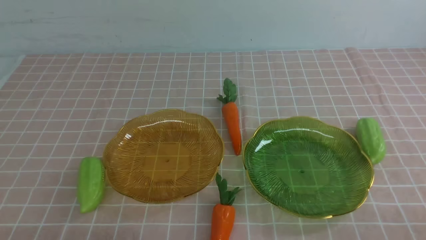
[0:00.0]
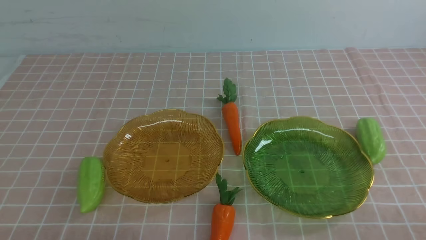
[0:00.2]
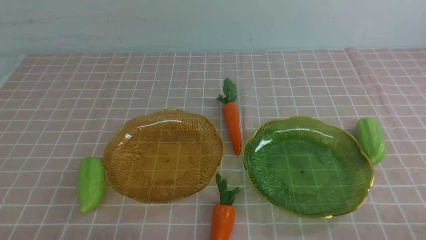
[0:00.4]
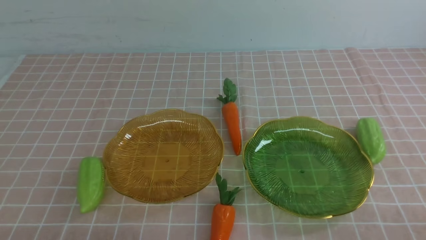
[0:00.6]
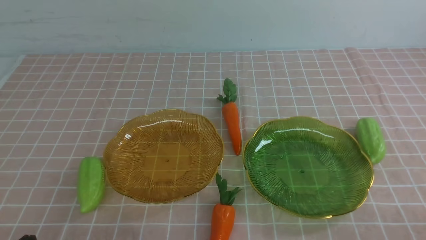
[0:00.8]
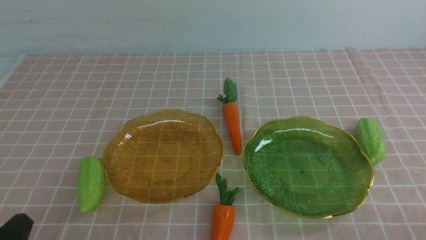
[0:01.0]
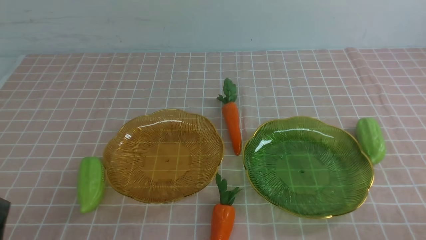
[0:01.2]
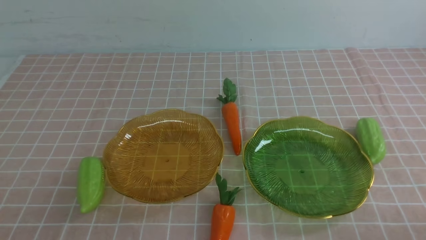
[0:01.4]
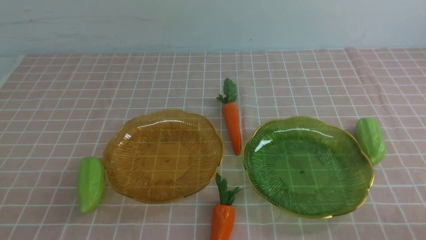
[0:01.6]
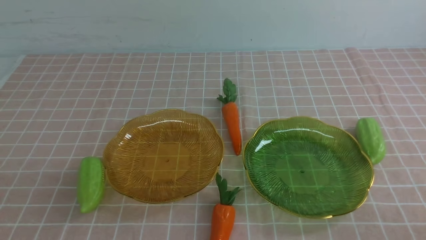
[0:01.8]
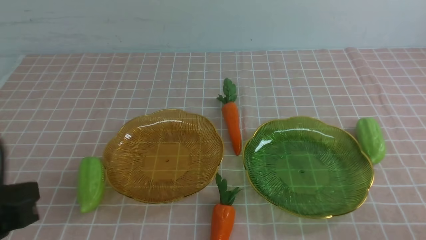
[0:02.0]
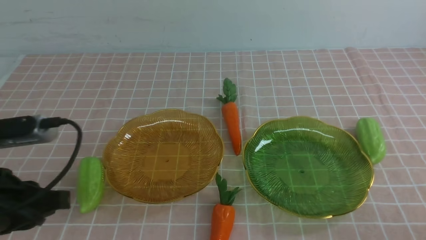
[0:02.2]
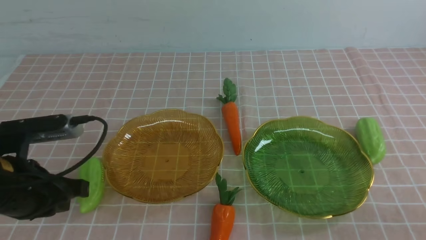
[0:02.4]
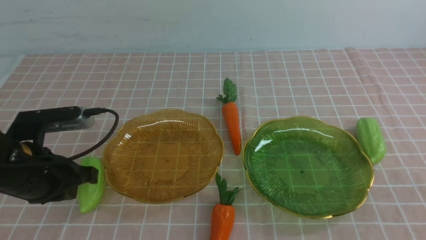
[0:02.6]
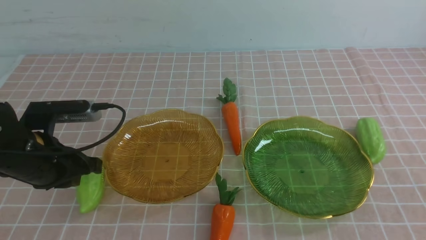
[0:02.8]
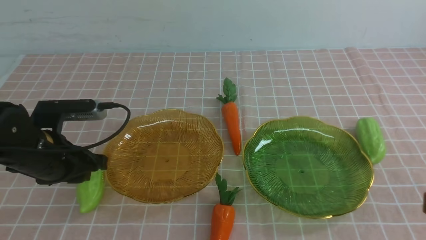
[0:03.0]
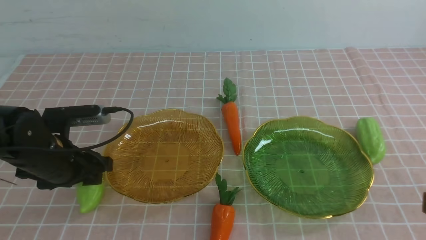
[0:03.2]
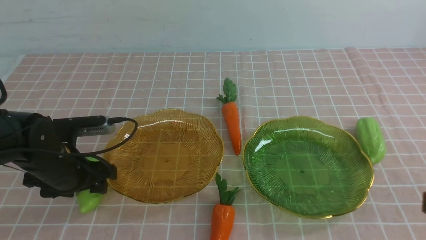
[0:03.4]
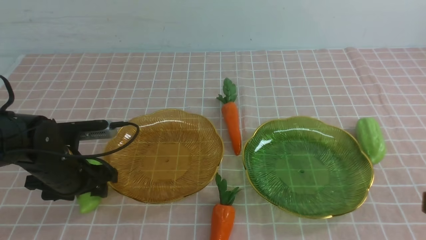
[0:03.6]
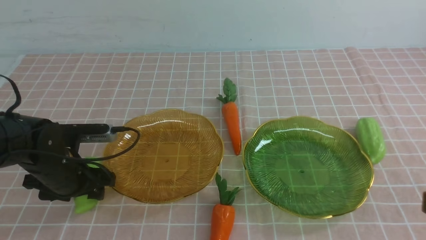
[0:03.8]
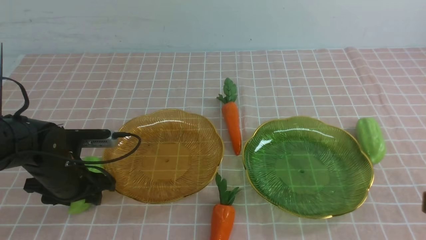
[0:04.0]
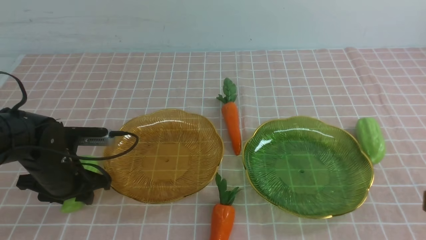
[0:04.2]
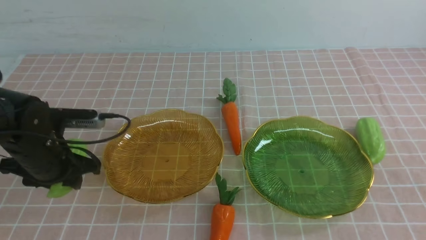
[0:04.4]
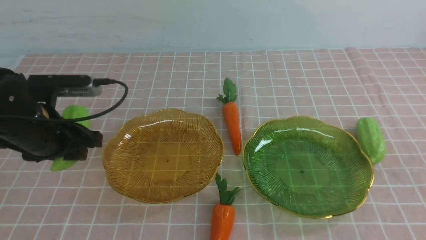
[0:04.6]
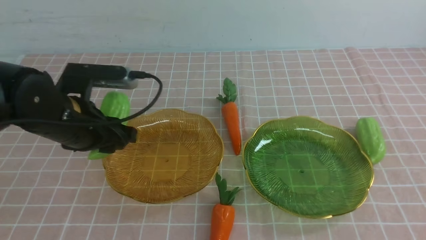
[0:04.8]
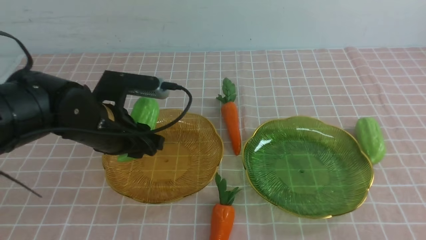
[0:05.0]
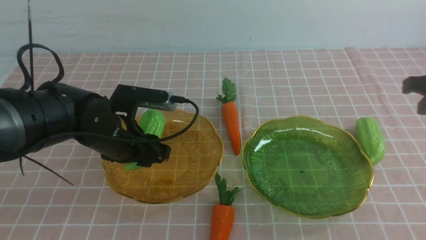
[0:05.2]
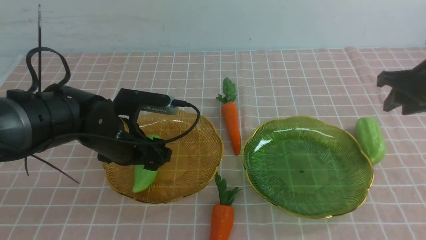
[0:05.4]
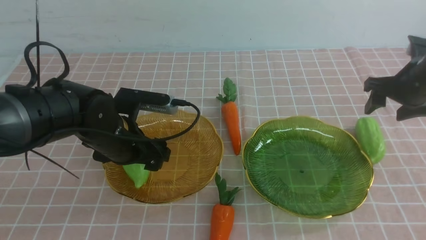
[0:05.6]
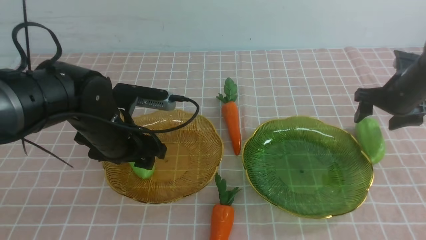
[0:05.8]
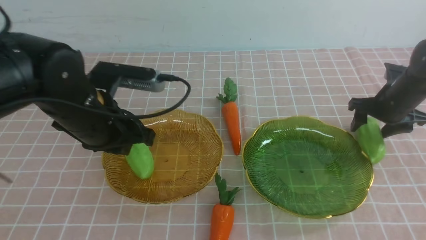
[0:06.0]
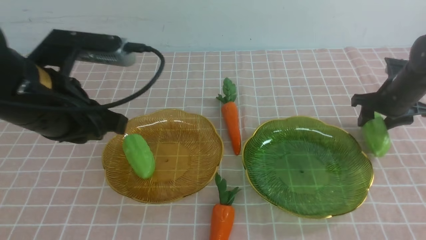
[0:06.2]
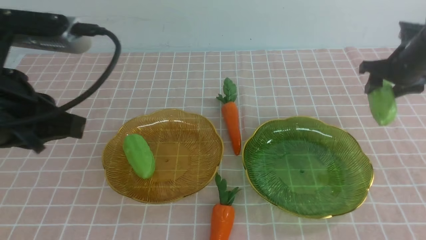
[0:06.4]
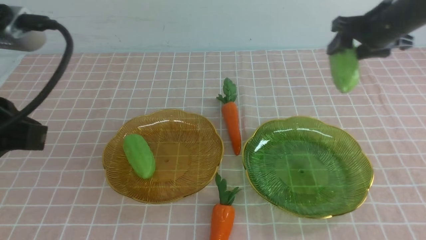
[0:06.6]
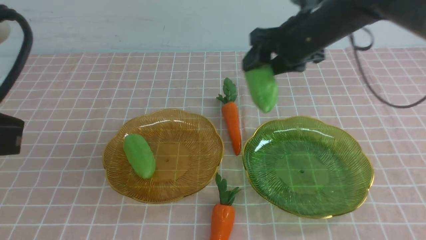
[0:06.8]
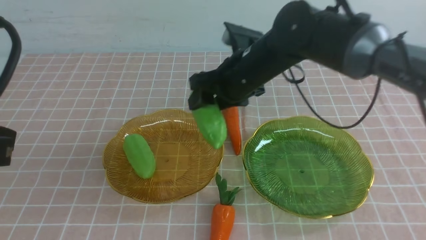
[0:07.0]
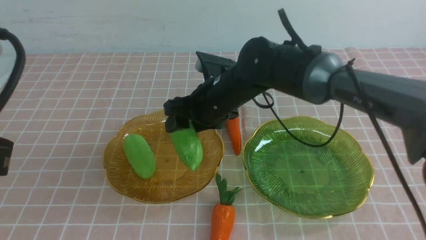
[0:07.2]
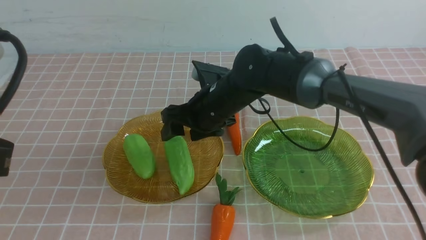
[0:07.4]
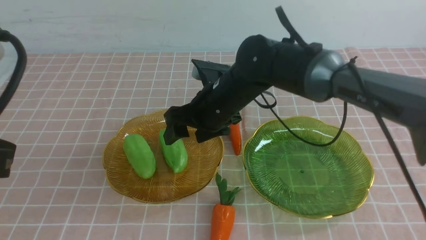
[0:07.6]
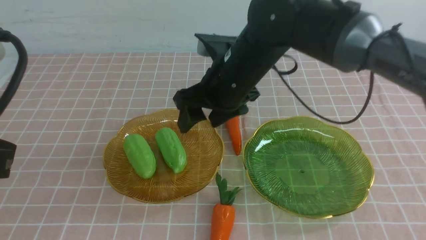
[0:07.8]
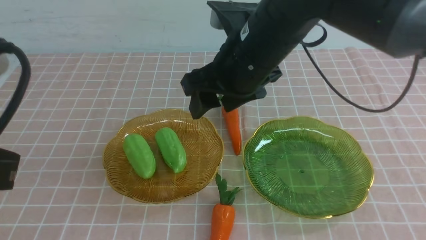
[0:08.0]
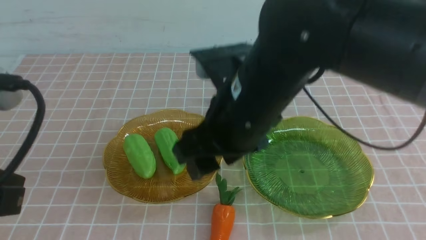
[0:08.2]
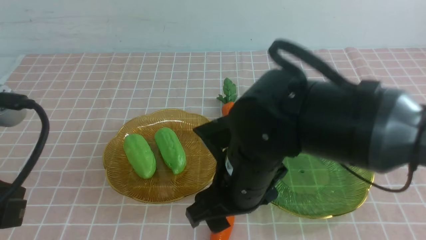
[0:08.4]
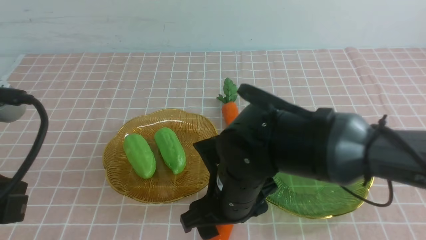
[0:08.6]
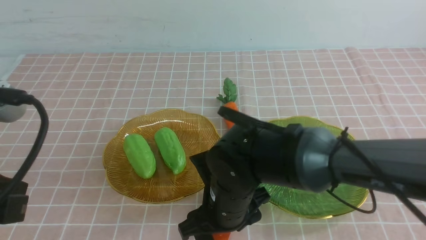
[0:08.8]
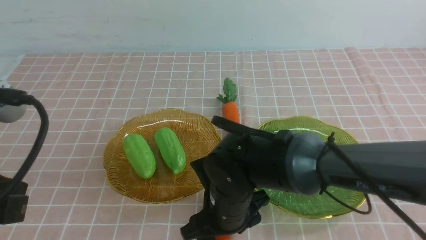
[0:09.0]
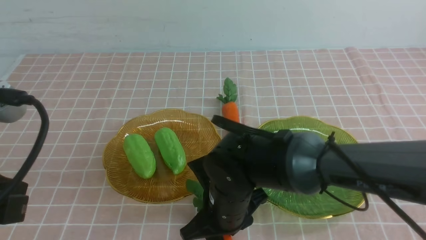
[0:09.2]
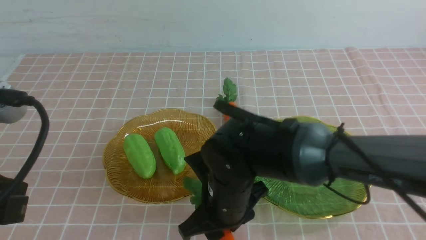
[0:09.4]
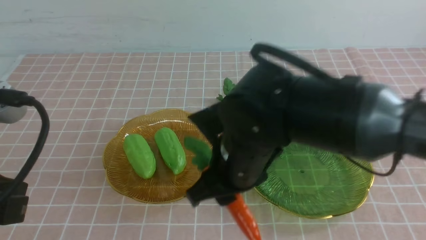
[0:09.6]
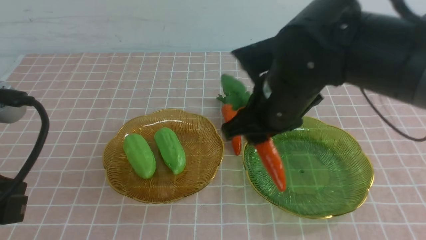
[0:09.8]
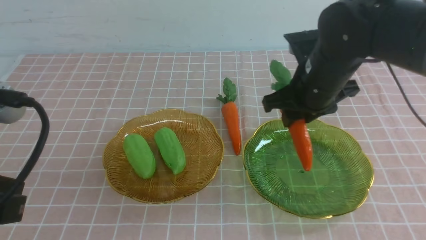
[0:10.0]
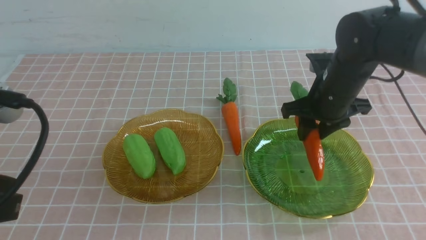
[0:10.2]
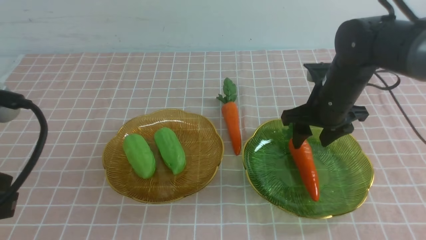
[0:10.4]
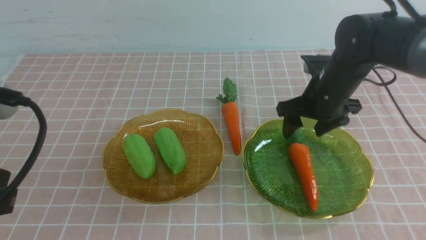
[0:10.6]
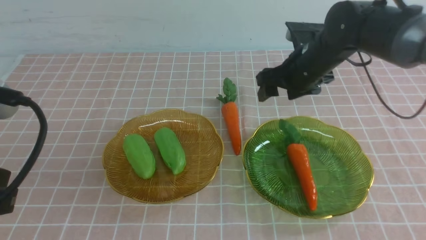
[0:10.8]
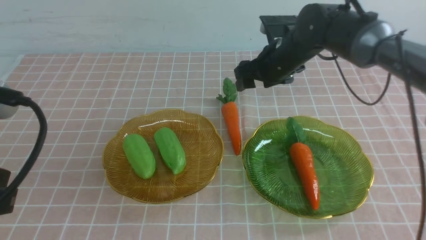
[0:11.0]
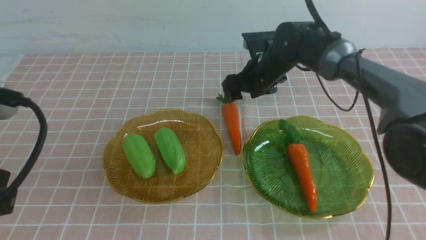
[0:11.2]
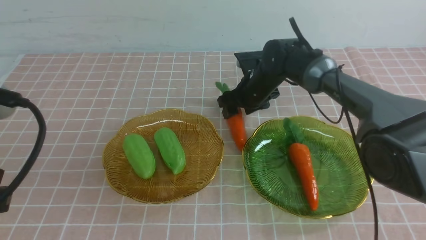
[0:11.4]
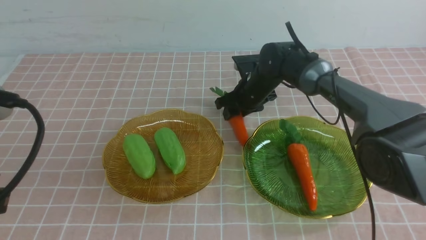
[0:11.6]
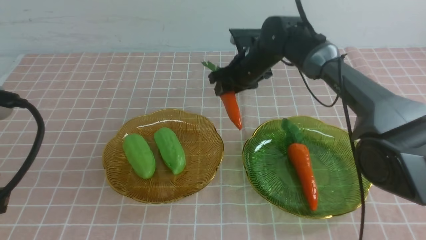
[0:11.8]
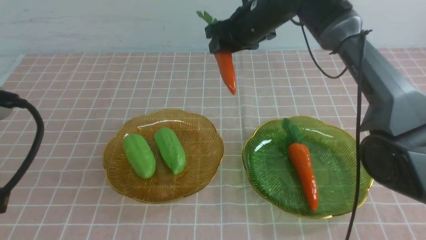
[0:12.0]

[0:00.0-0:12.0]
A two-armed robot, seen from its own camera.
Step, 0:00.0 to 0:05.8: use the left arm to grab a chayote and put it into the left plate.
Step, 0:06.0 to 0:07.4: Grab the chayote with your right arm and put it on the left plate.
0:01.6 to 0:03.0: The left gripper goes about 25 cm forward, and opens its fingers.
0:03.0 to 0:04.4: There are only small adjustments of the grippers.
0:04.4 to 0:06.0: The right gripper is displaced forward and downward by about 35 cm, and opens its fingers. Meanwhile the left gripper is displaced to the right and upward by about 10 cm, and opens, then closes again.
0:06.0 to 0:07.6: The left gripper is displaced backward and upward by about 20 cm, and closes up; the right gripper shifts about 30 cm to the left.
0:07.6 to 0:09.0: The right gripper goes about 15 cm backward and downward.
0:09.0 to 0:10.4: The right gripper heads forward, to the right and upward, covering roughly 25 cm.
0:10.4 to 0:12.0: The right gripper heads to the left, forward and upward, covering roughly 15 cm, and closes its fingers.

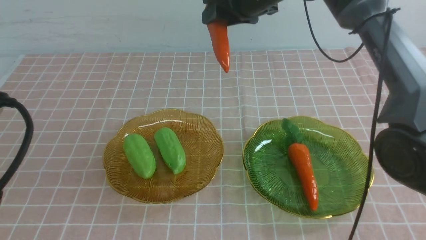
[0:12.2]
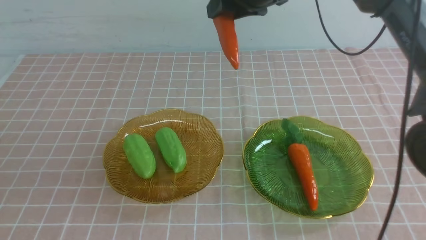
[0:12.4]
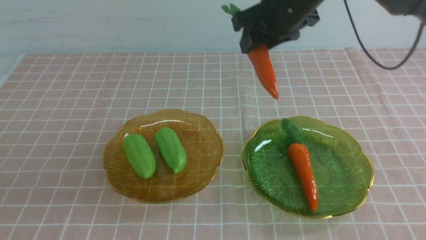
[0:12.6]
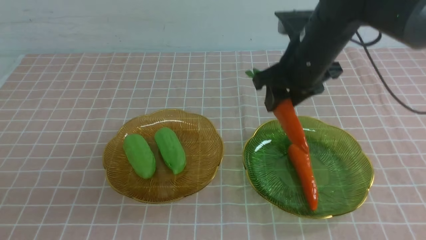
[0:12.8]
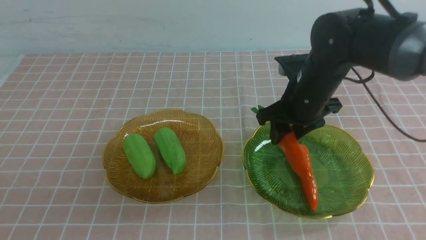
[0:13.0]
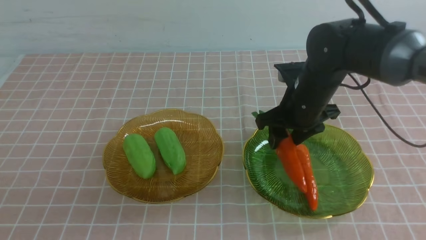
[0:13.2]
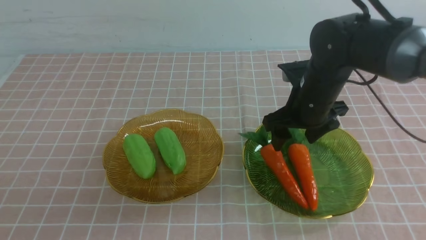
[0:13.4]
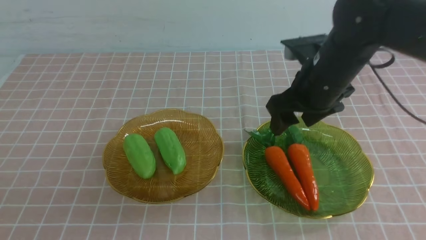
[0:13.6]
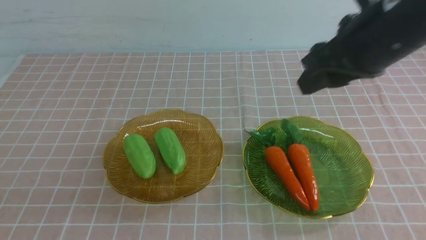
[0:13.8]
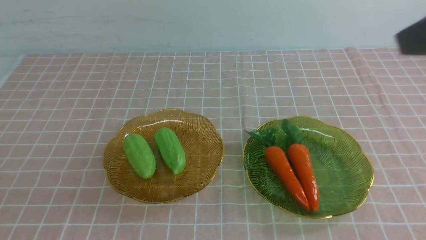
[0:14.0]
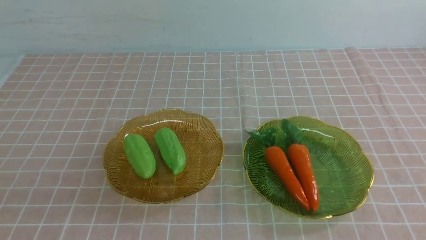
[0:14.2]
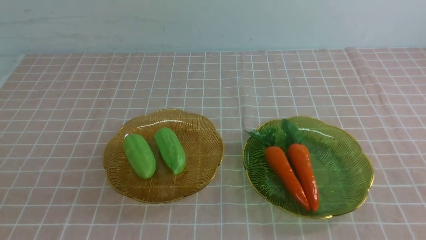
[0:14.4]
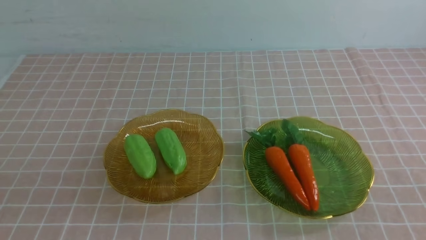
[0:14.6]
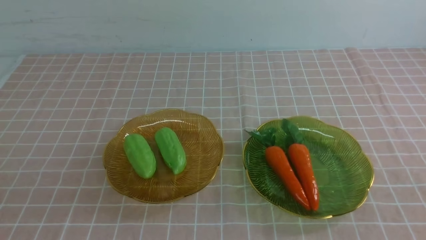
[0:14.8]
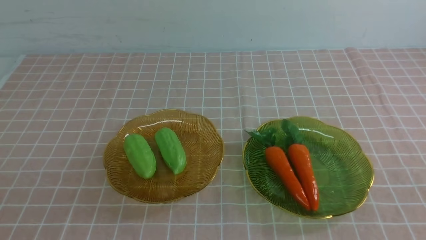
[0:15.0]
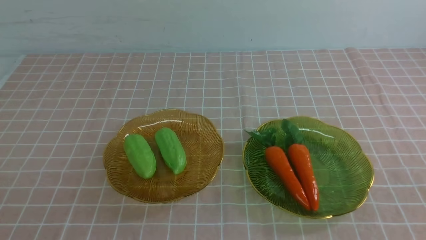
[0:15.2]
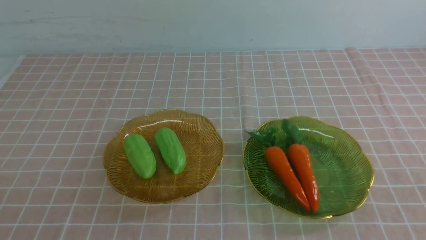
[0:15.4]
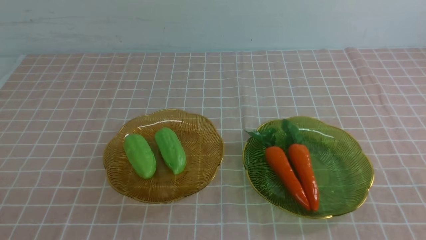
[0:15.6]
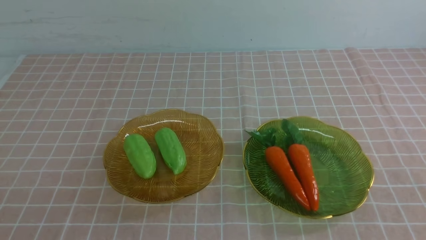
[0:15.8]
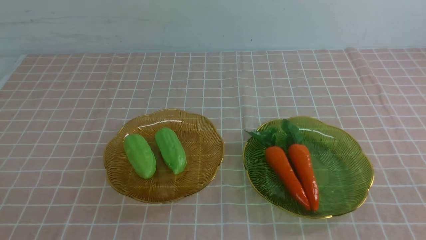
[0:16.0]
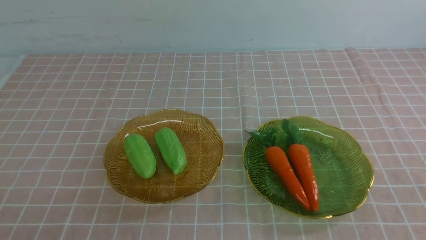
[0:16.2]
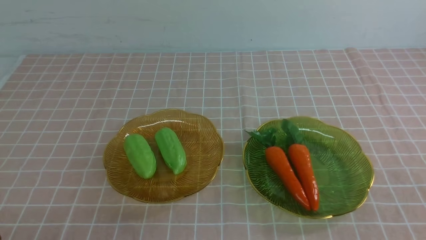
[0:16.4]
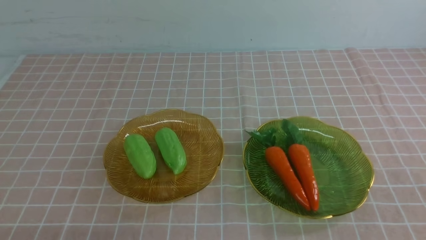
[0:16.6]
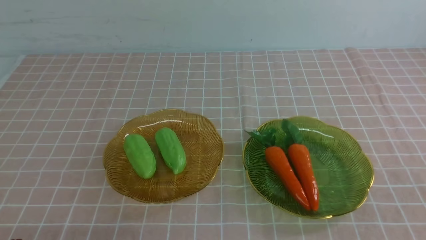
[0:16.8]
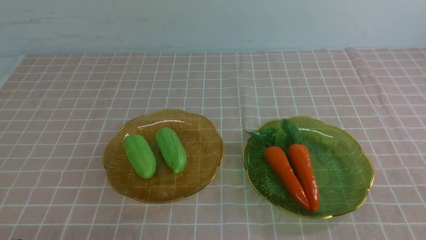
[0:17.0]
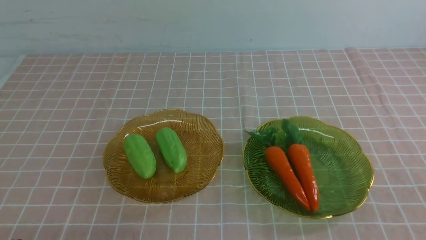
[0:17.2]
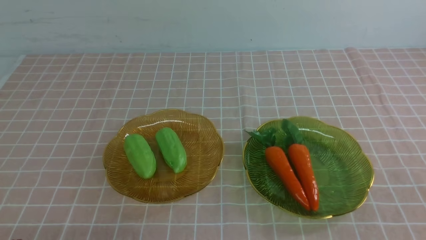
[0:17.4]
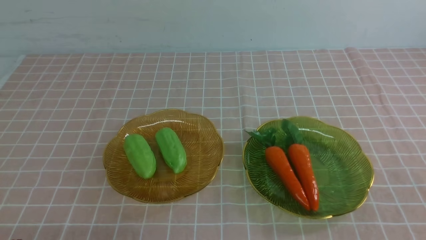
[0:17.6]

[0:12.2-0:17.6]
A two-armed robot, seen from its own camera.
0:12.2 to 0:13.6: The right gripper shifts roughly 25 cm backward and to the right. Meanwhile the left gripper heads backward, covering roughly 5 cm.
0:13.6 to 0:15.0: The right gripper heads backward and to the right, covering about 25 cm, and closes up.
